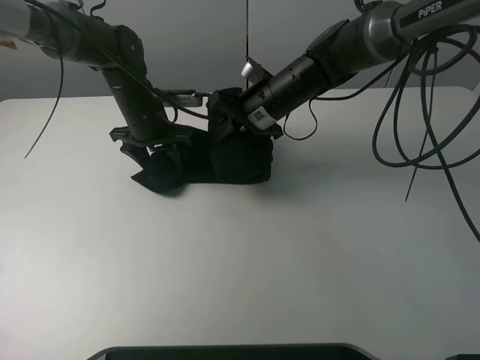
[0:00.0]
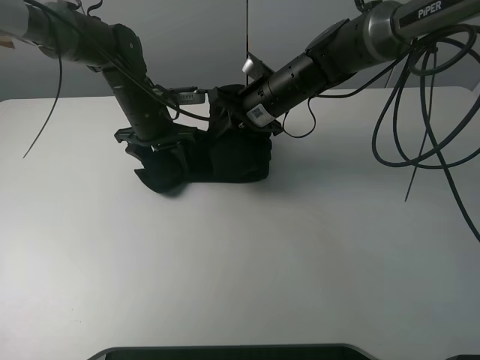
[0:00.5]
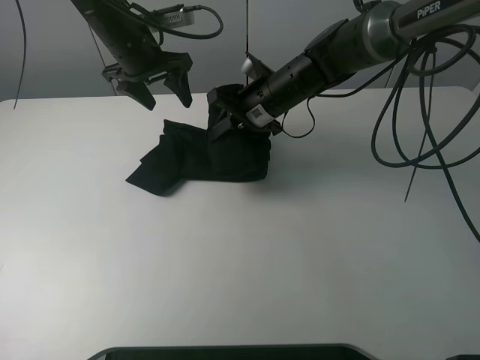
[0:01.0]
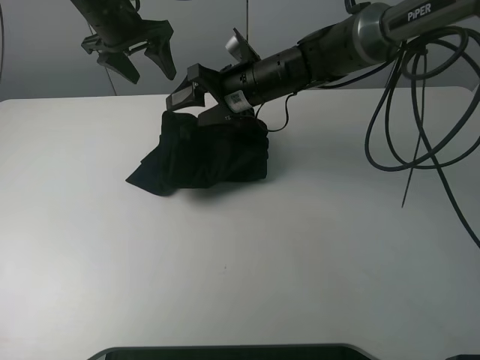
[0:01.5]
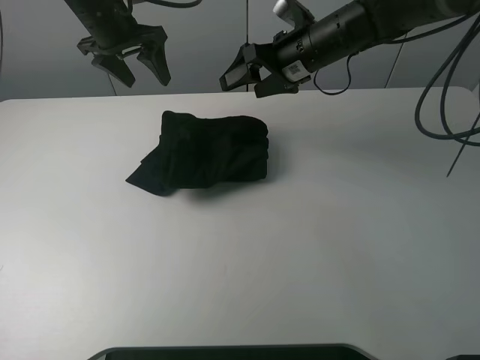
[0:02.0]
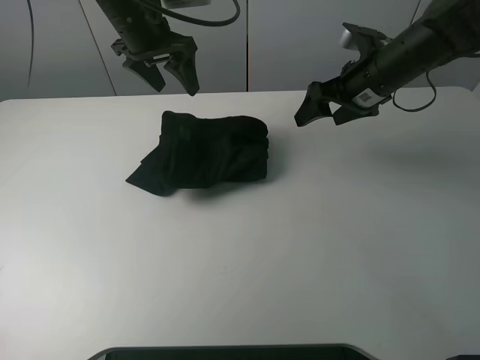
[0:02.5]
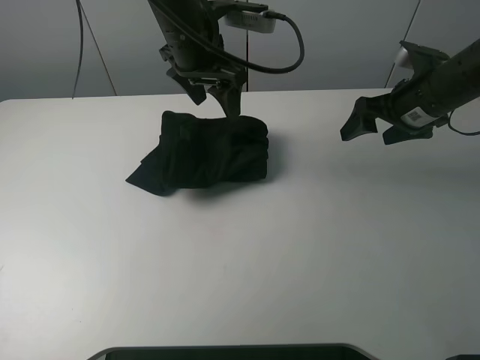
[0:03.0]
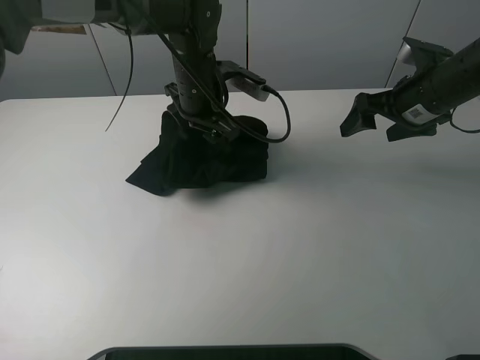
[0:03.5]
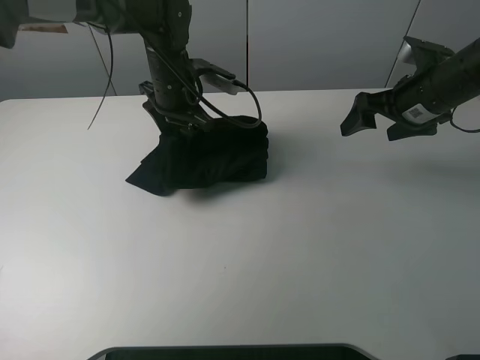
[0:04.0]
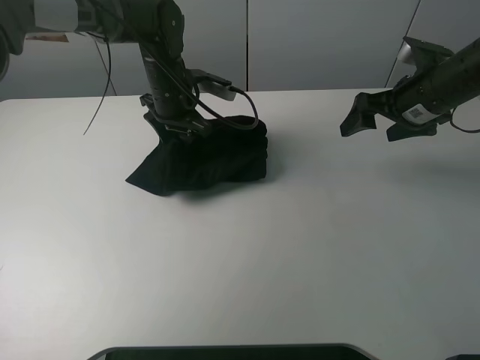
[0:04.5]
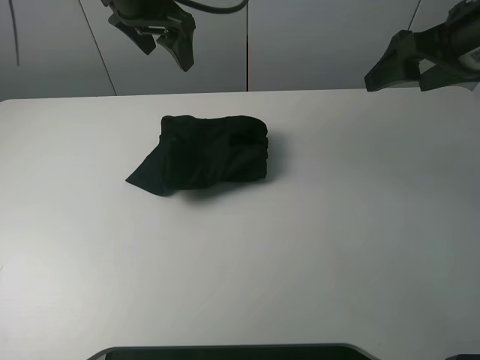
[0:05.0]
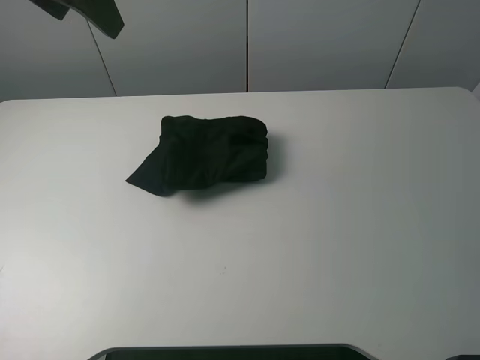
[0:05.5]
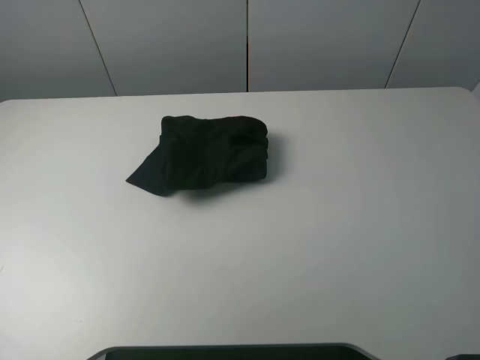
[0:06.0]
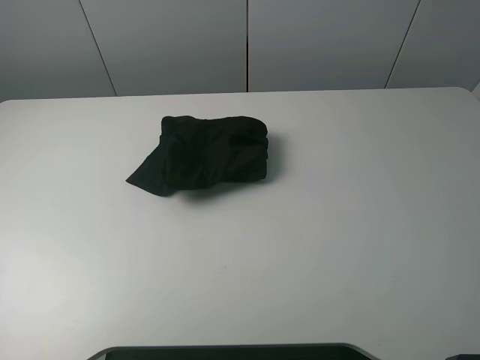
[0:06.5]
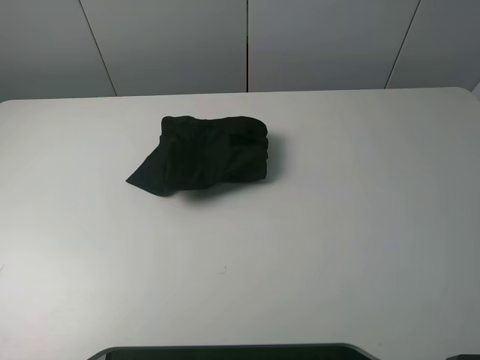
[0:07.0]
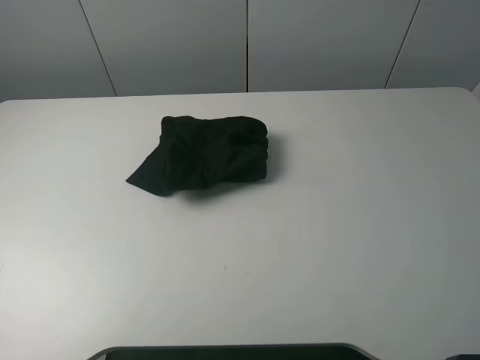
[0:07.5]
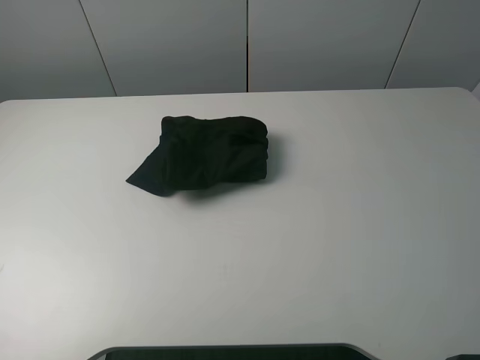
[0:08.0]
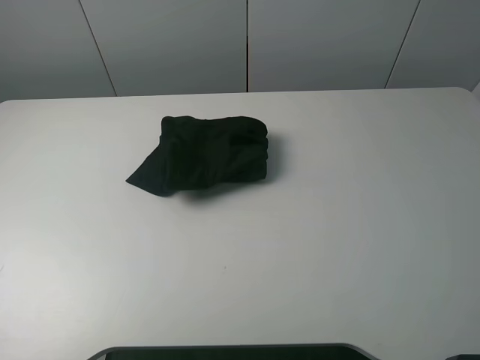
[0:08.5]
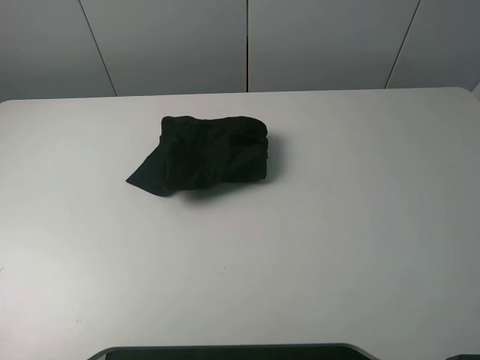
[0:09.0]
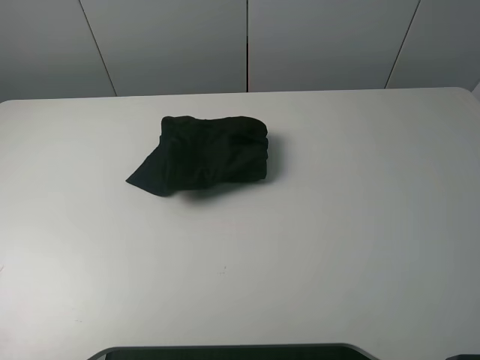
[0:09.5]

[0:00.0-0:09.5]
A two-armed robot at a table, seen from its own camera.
Task of the whole recording: fold the clothes on the table.
Step, 0:02.0 to 0:04.5: Use the left gripper to tidy up the clothes.
0:00.0 to 0:02.0: The right gripper goes approximately 10 cm upward and to the right, and opens up, while the left gripper heads upward, covering some 15 cm.
0:02.0 to 0:04.0: The left gripper travels downward and to the right by about 15 cm. Meanwhile the right gripper goes about 15 cm to the right and backward.
0:04.0 to 0:05.5: The right gripper moves backward and upward, about 30 cm. Meanwhile the left gripper moves upward, backward and to the left, roughly 30 cm.
0:05.5 to 0:07.5: The left gripper travels backward and to the left by approximately 30 cm.
